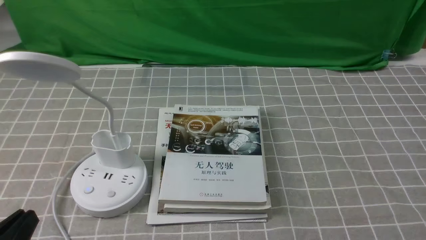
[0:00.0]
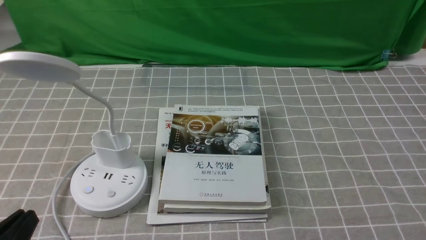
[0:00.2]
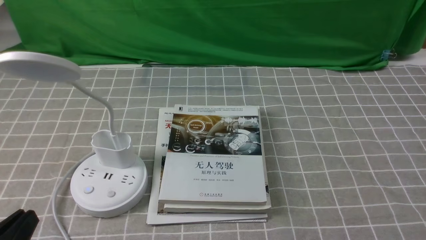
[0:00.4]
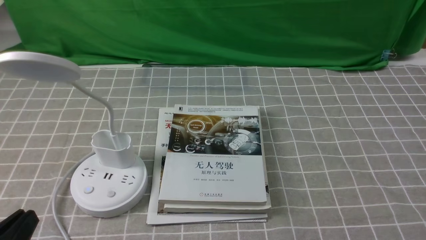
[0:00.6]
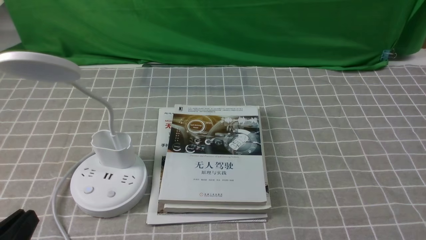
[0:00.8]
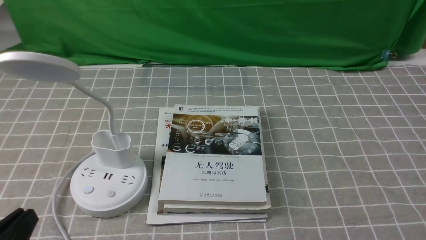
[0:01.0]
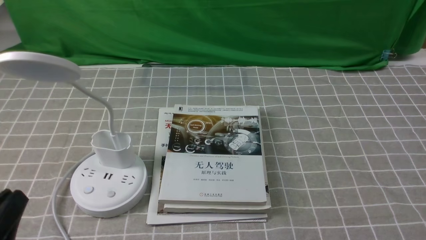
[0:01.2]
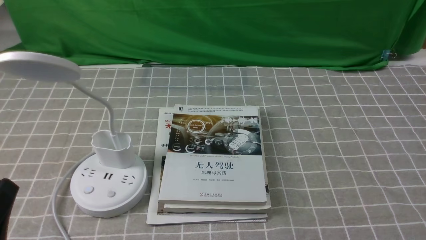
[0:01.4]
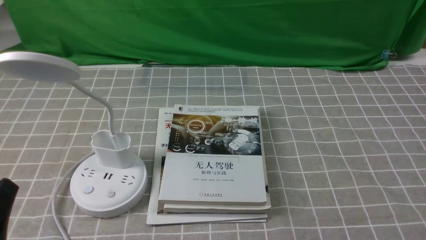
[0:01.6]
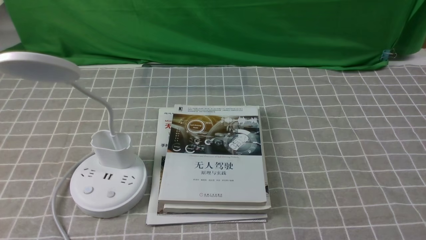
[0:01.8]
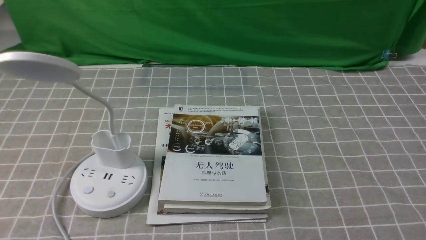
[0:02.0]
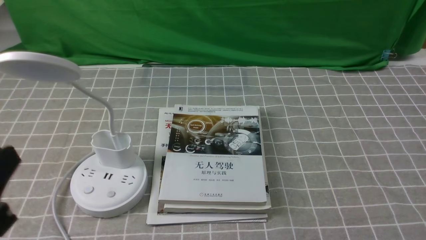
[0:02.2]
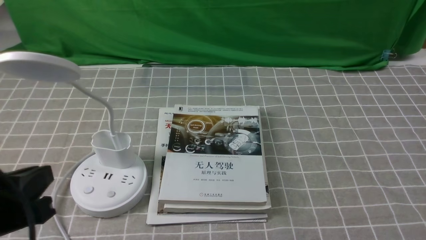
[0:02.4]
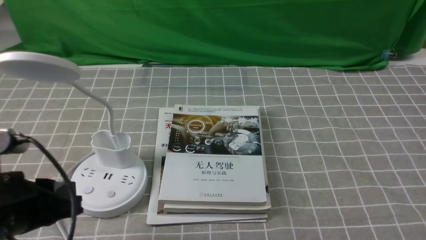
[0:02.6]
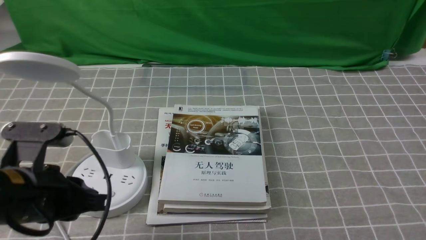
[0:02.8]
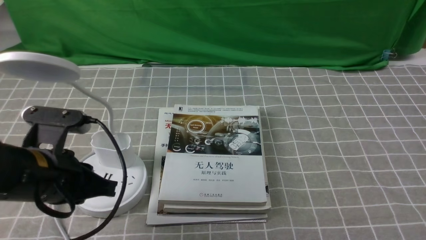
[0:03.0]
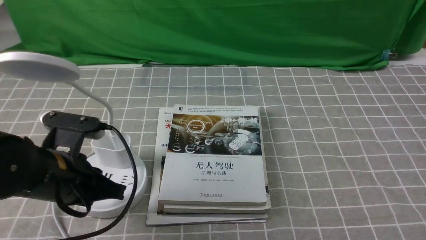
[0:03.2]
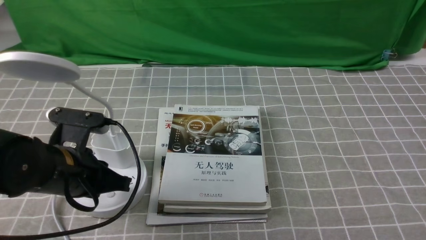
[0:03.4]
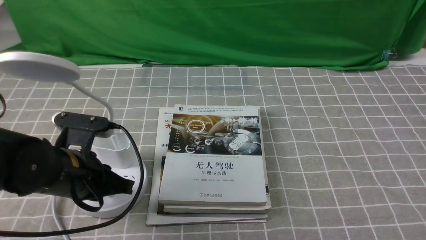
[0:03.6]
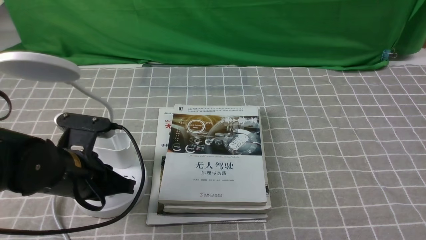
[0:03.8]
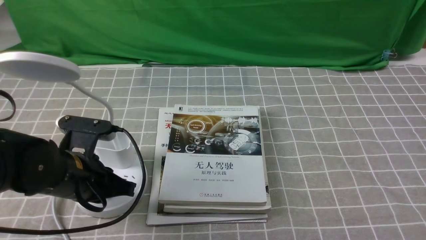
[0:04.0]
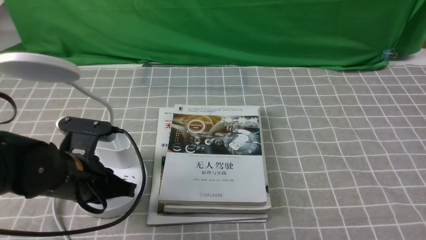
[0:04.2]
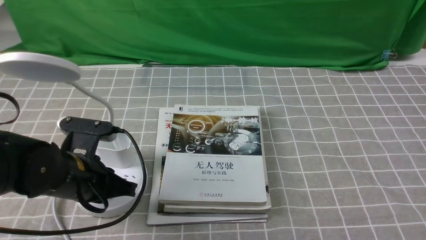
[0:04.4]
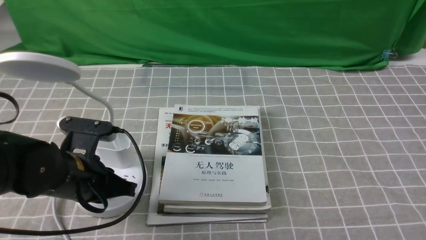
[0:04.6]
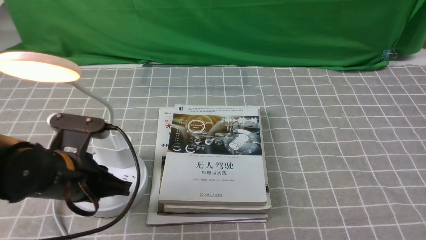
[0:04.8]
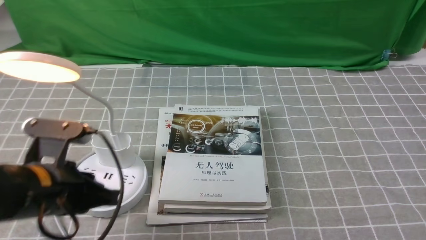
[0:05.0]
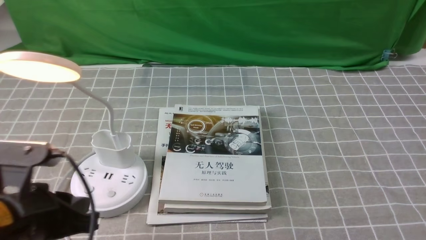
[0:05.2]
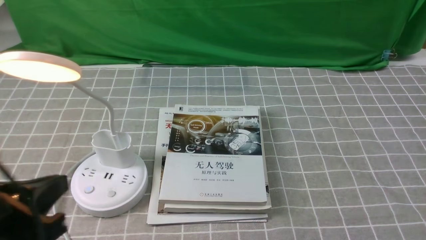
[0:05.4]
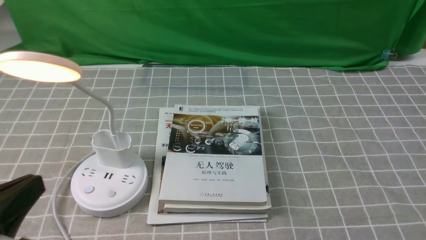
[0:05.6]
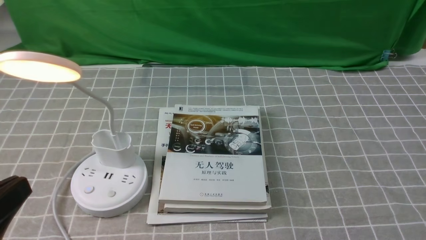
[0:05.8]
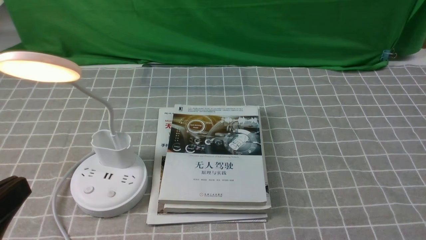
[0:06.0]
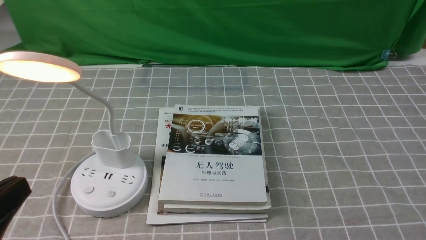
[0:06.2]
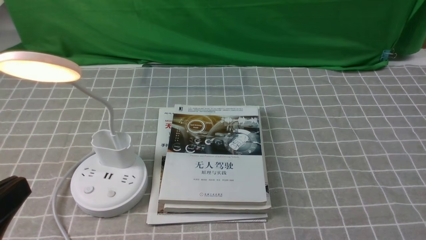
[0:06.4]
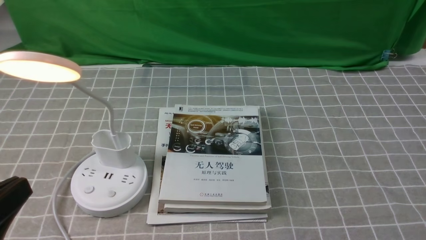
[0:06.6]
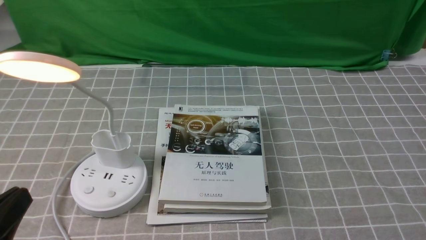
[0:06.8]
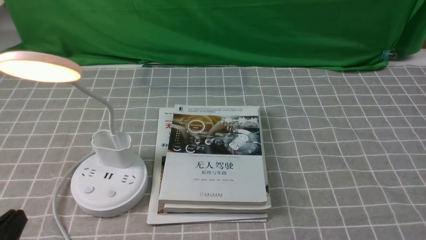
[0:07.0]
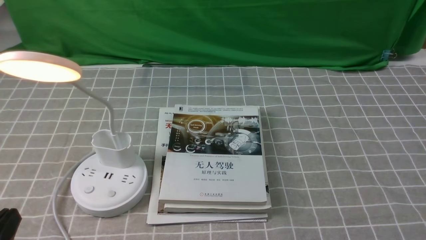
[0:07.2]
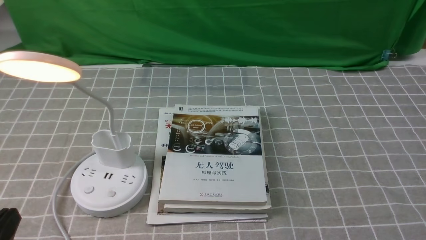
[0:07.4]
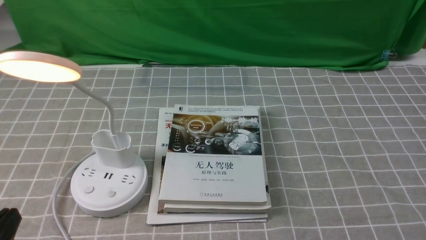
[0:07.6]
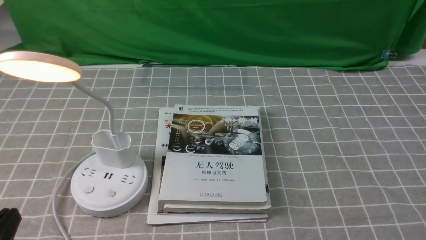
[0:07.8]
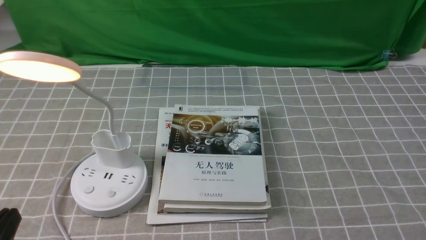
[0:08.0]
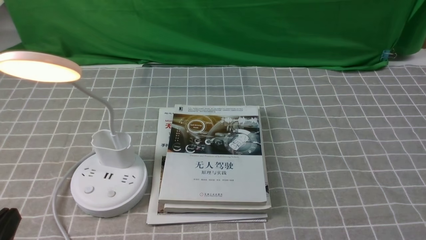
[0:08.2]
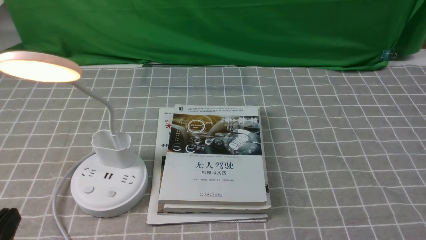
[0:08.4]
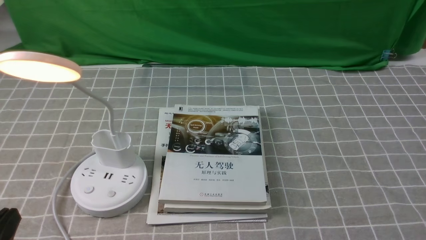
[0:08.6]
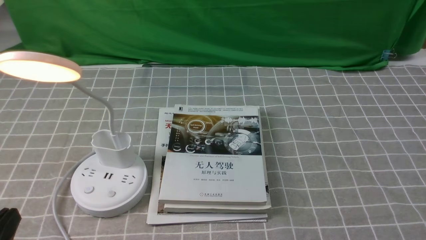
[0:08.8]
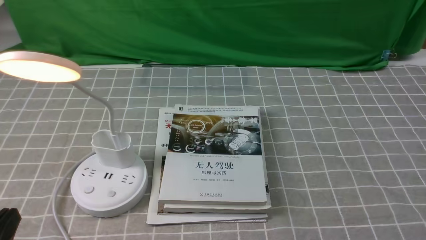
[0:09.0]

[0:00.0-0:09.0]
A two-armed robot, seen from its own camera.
Step, 0:00.0 to 0:04.8: use the left arm to press the button switch on the lamp holder.
0:01.6 to 0:03.0: The left gripper goes some 15 cm forward.
0:03.0 to 0:04.4: The left gripper travels forward and downward by some 10 cm, and closes up.
0:04.4 to 0:06.0: The left gripper is displaced backward and upward by approximately 20 cm.
0:06.0 to 0:07.6: The left gripper travels downward by roughly 10 cm.
0:07.6 to 0:09.0: Both grippers stay put.

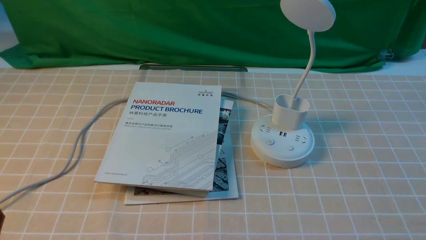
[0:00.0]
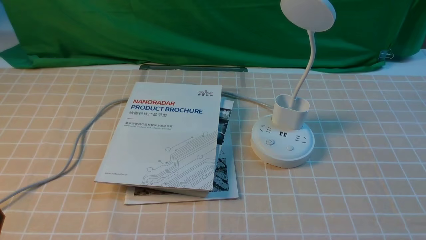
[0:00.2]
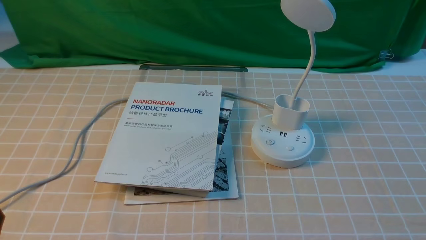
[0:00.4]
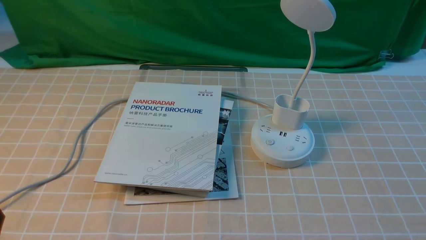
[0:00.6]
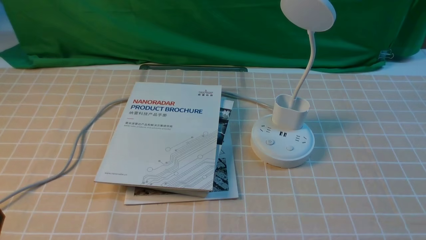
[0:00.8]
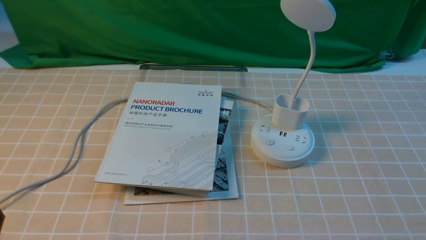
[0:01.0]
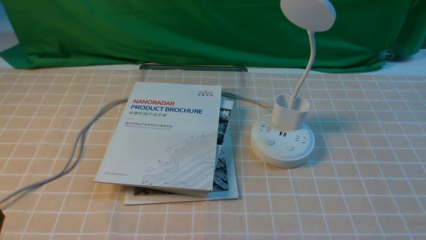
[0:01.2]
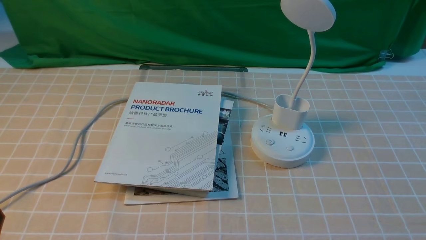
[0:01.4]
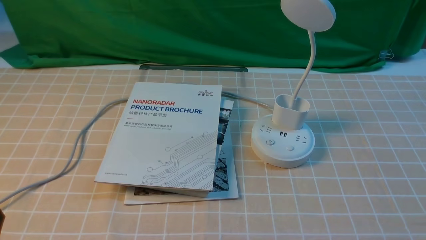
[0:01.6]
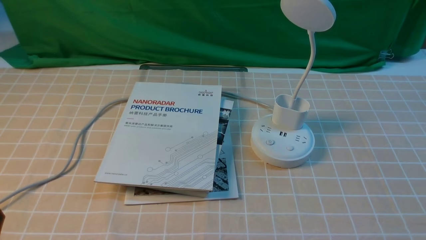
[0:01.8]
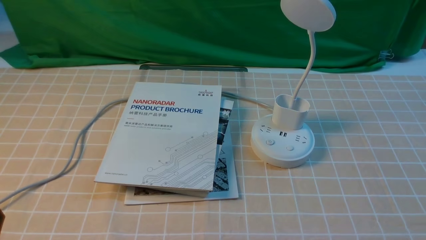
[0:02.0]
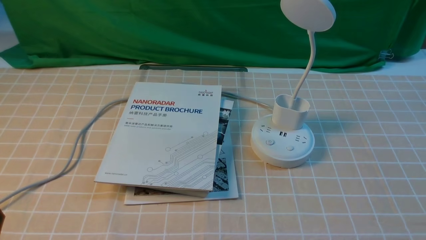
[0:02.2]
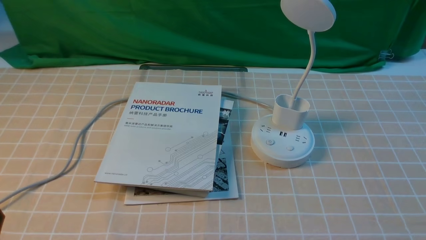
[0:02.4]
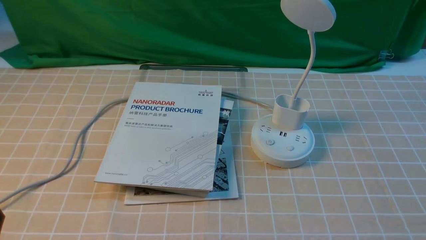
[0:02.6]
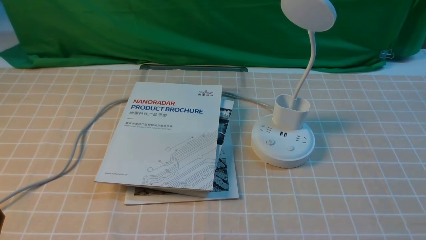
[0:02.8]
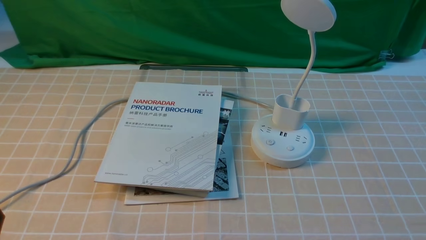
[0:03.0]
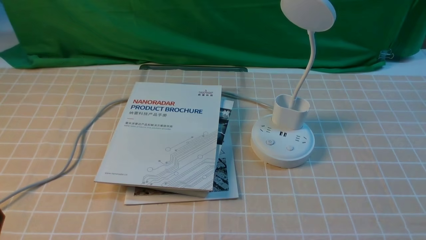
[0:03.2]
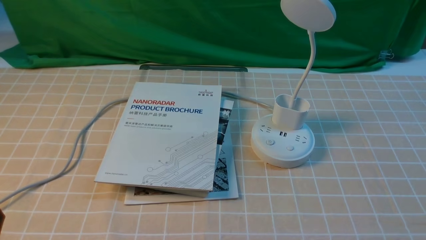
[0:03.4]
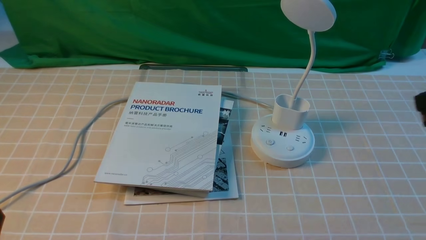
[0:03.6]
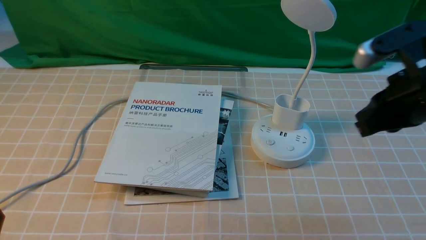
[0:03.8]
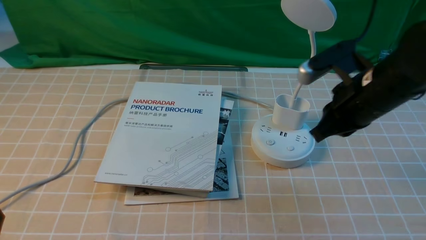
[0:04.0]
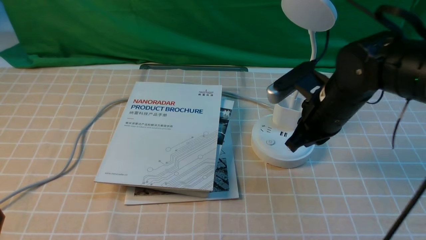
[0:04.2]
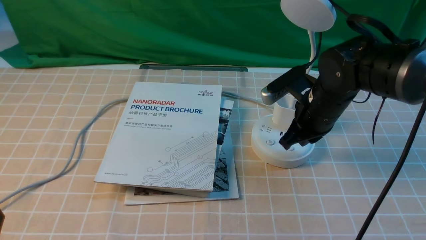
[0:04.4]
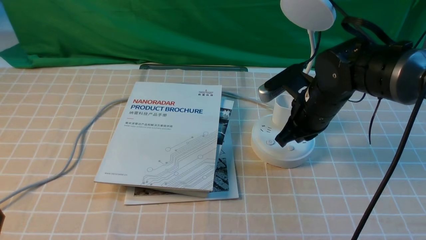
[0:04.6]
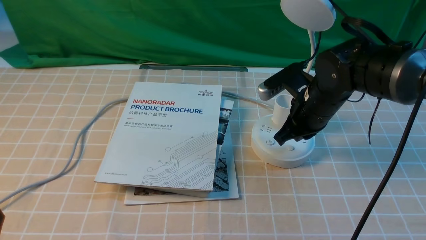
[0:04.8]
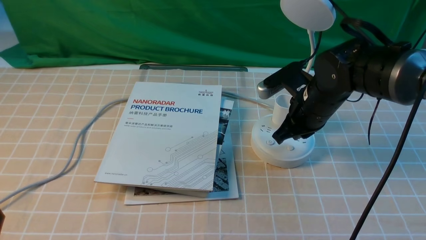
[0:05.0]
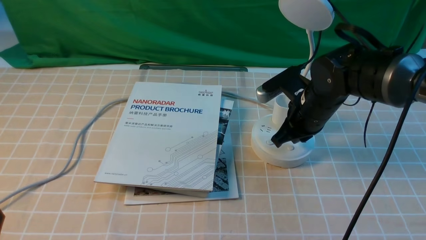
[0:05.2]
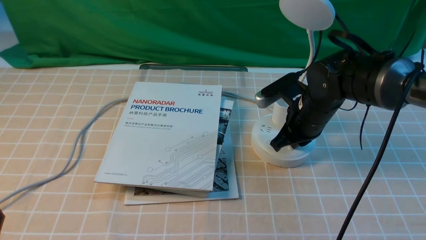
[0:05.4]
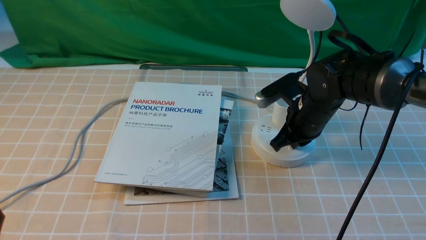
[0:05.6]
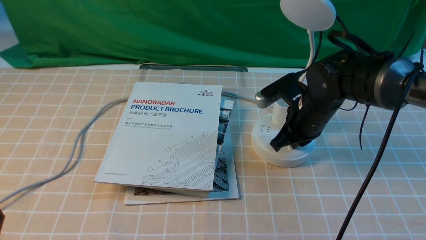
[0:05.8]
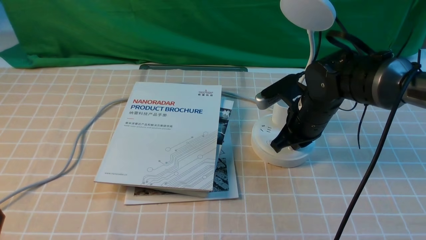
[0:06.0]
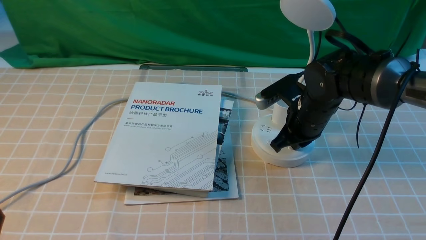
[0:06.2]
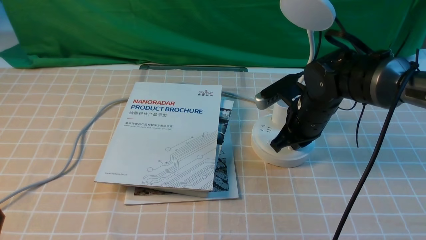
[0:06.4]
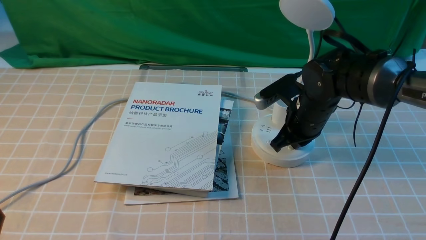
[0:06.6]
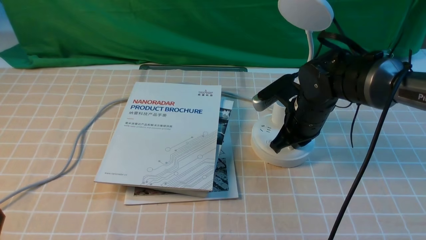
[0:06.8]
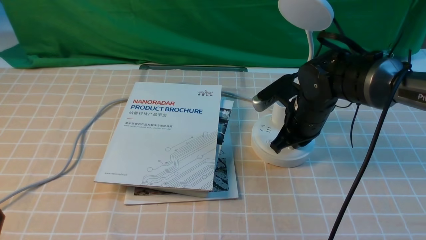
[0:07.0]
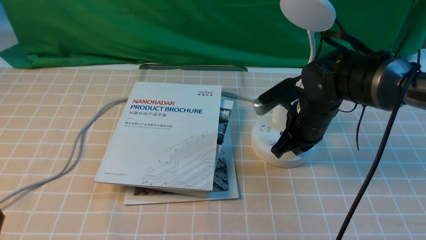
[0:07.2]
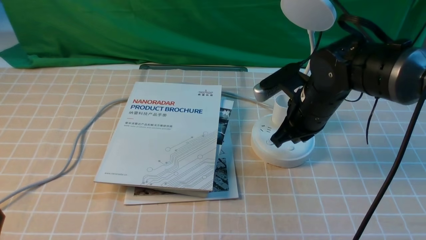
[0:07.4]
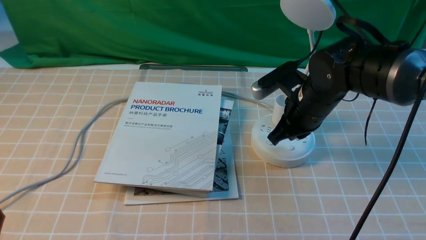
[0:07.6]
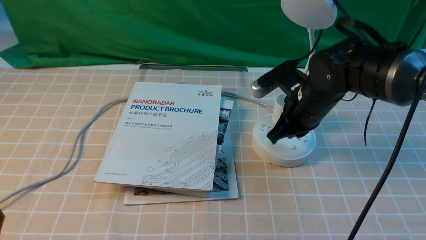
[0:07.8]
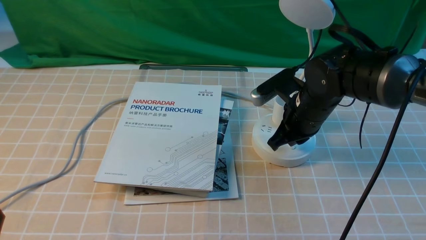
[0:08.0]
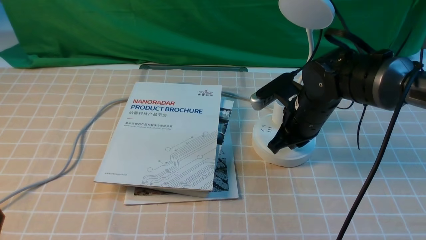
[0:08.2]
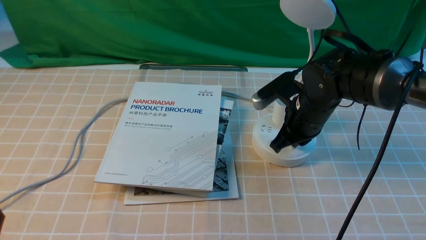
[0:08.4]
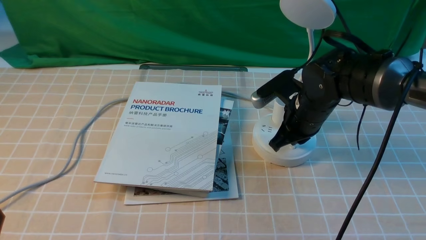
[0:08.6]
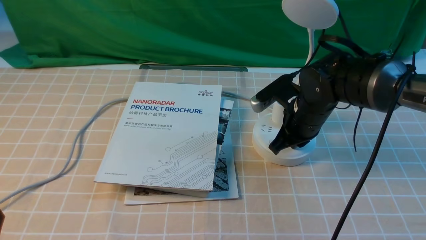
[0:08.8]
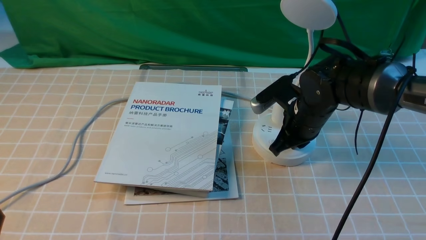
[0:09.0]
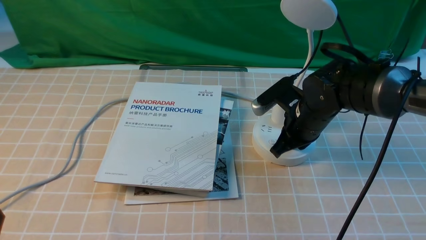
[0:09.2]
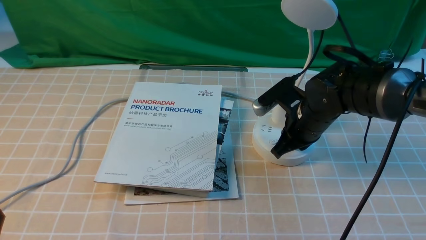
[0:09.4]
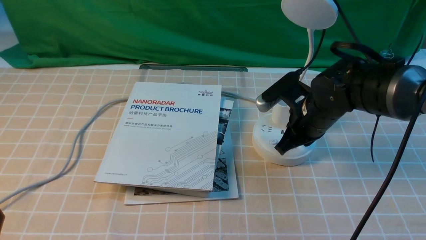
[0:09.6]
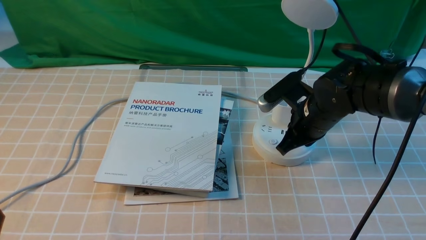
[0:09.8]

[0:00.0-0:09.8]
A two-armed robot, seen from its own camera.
0:02.8 to 0:04.2: The right gripper travels forward and to the left by about 30 cm, and closes.
0:04.2 to 0:05.6: The right gripper is displaced downward by about 5 cm.
0:05.6 to 0:09.8: There are only small adjustments of the grippers.
